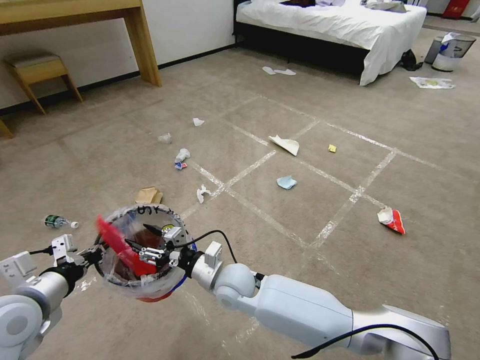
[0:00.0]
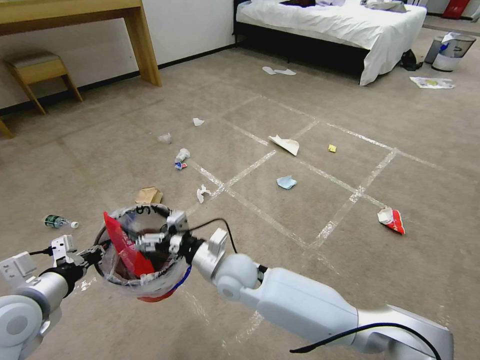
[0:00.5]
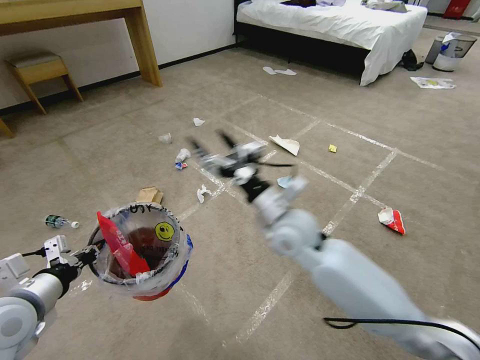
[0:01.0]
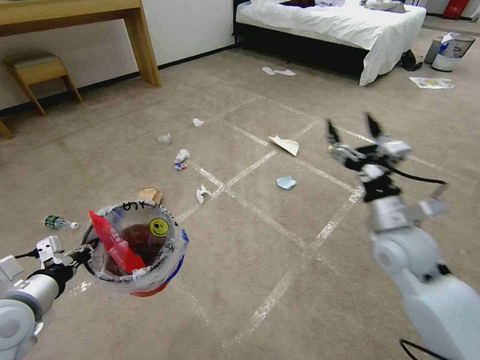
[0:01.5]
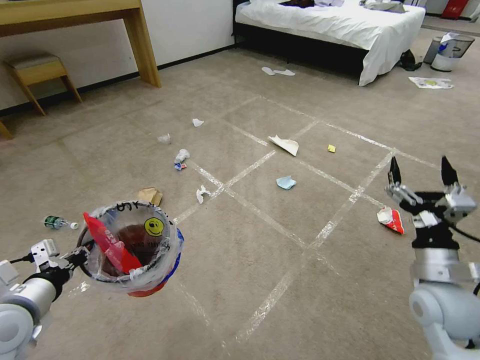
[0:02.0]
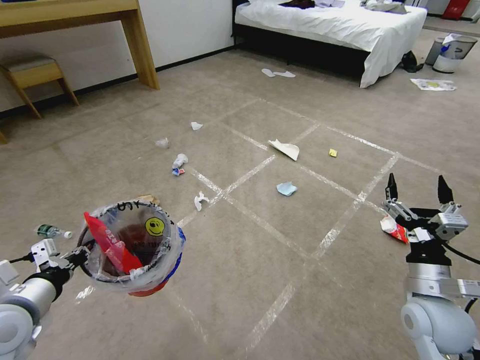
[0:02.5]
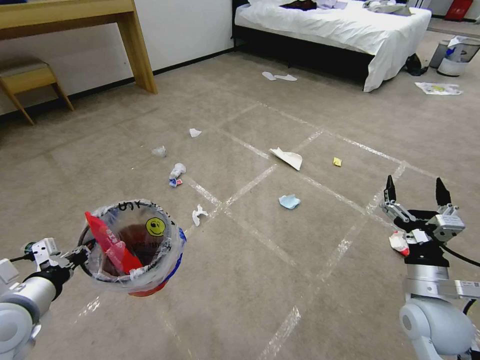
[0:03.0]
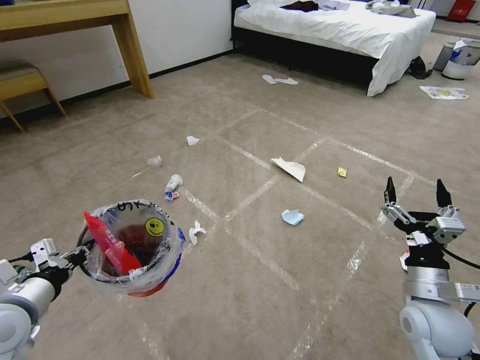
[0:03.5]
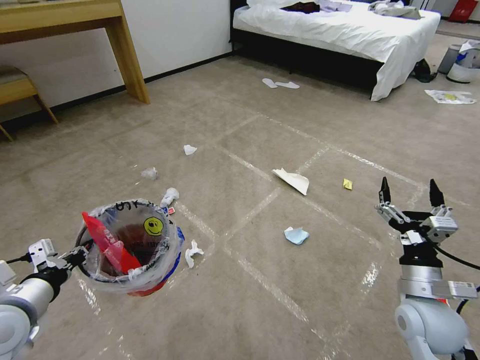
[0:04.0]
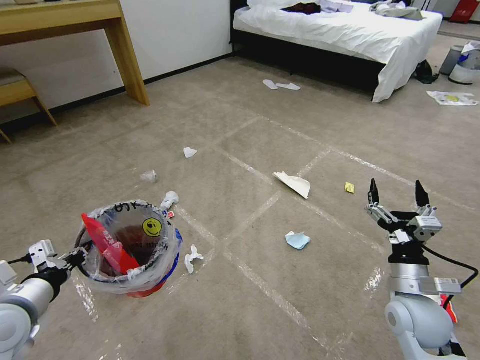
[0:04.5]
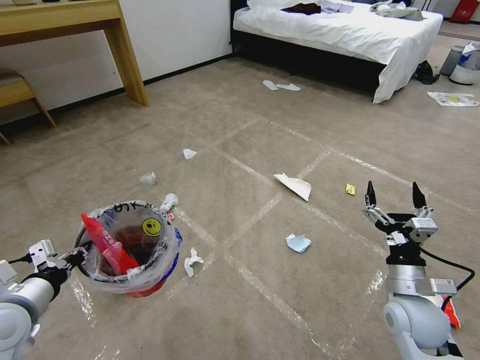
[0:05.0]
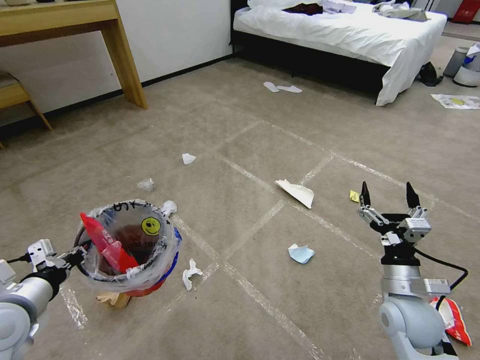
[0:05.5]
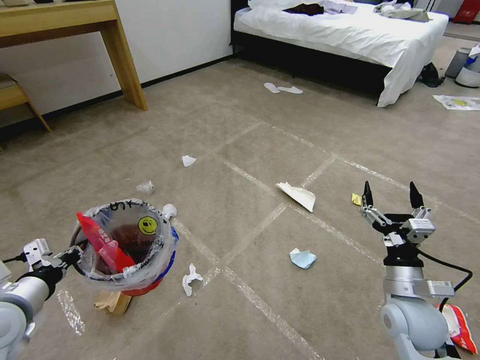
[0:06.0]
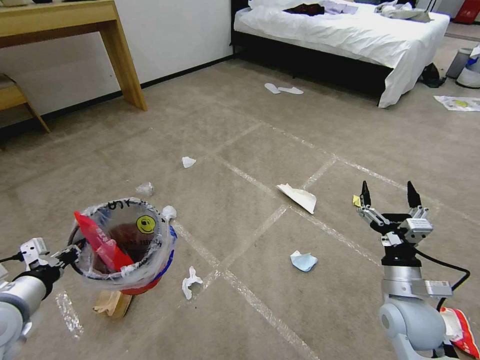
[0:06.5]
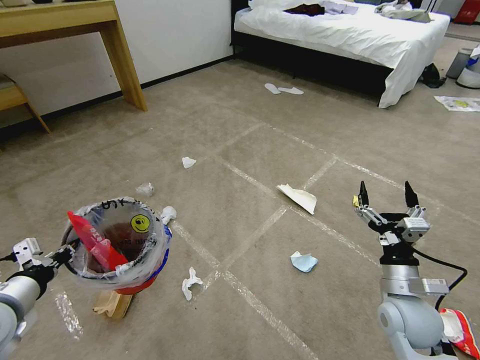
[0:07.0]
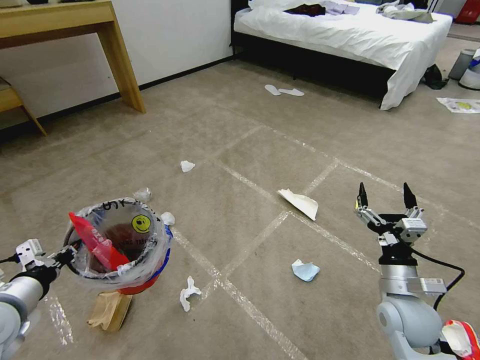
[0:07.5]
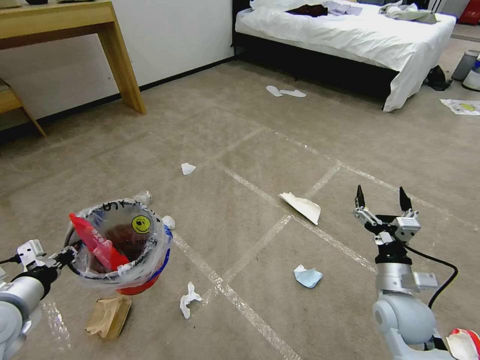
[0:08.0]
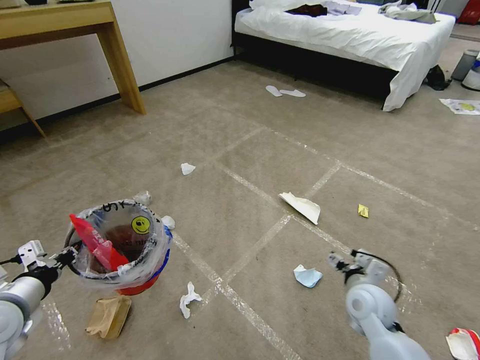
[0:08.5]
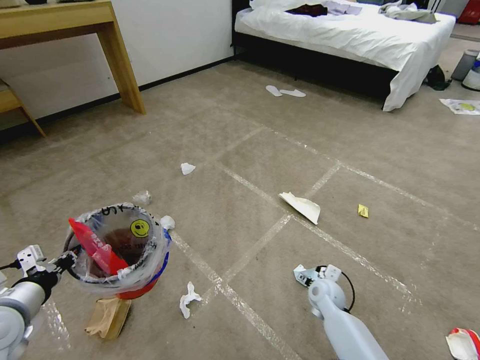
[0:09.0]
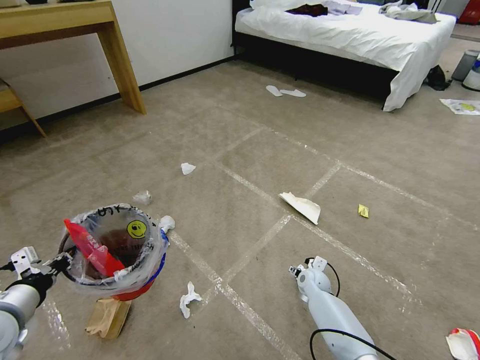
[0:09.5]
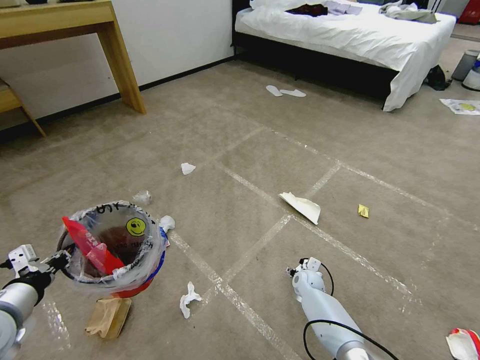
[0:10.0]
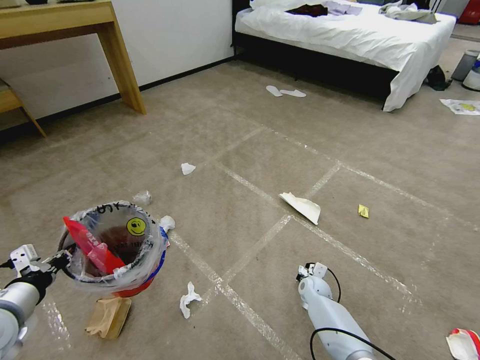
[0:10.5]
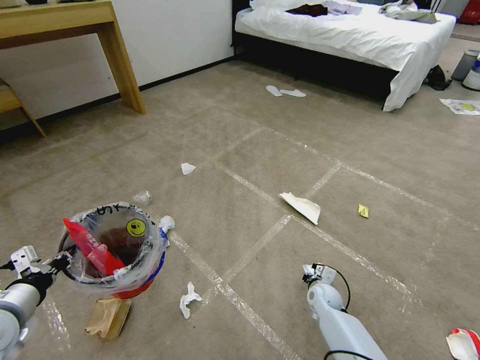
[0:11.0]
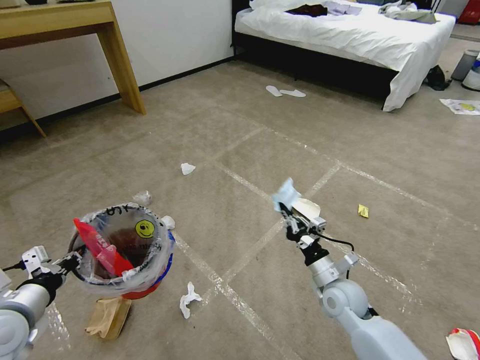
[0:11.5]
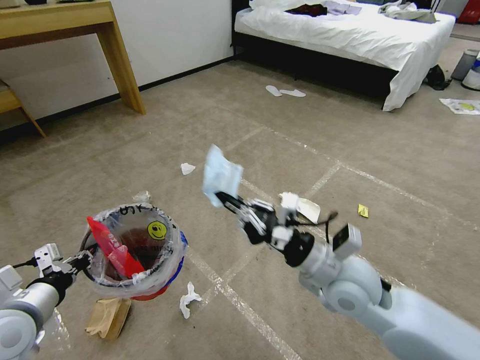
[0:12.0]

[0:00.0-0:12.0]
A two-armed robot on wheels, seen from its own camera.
Task of the whole recording: Pick up the trash bin and place the garbage on the floor into it.
0:00.0 to 0:02.0: The right gripper shifts about 40 cm to the right, and opens.
0:06.0 to 0:08.0: There are only small adjustments of the grippers.
0:08.0 to 0:10.0: The right gripper shifts roughly 30 cm downward, forward and to the left.
0:10.0 to 0:12.0: The right gripper travels upward and backward by approximately 35 cm, and closes its fingers.

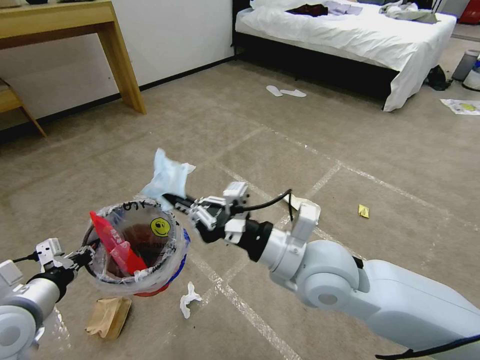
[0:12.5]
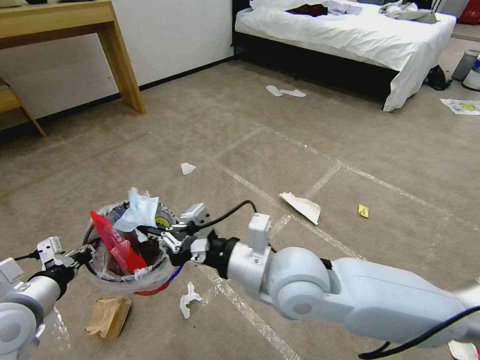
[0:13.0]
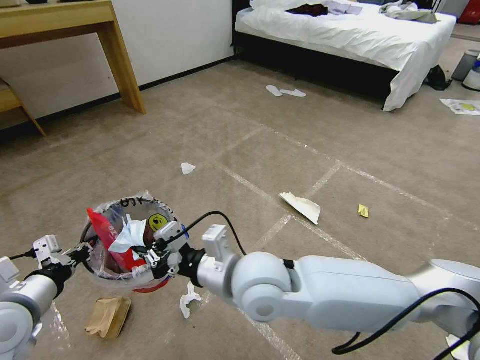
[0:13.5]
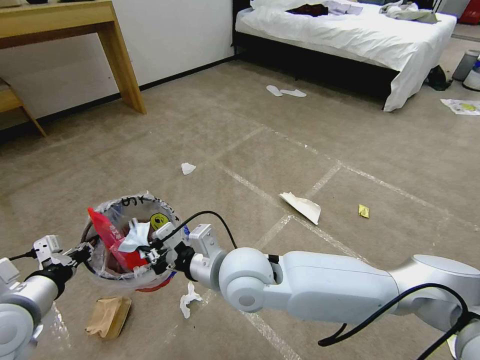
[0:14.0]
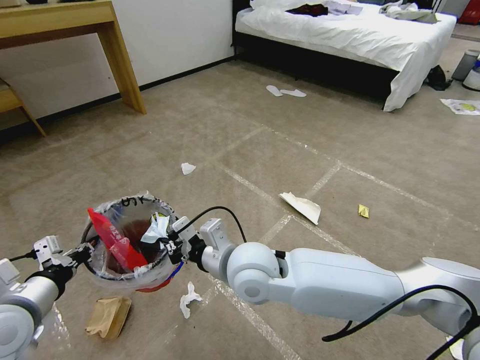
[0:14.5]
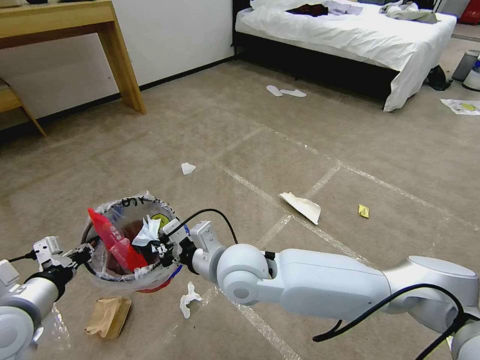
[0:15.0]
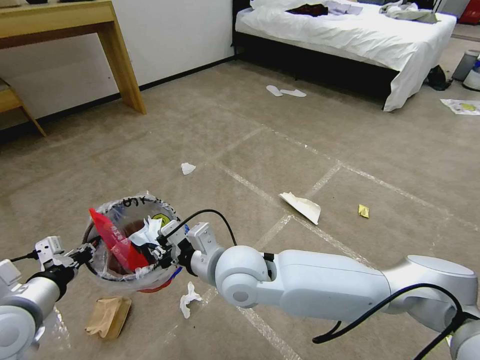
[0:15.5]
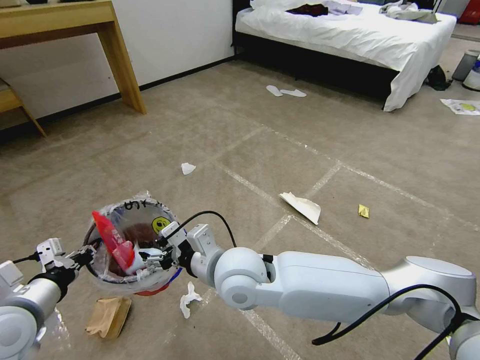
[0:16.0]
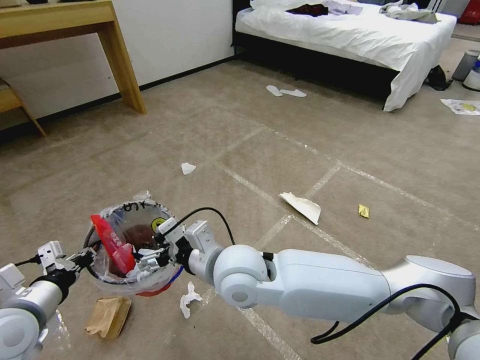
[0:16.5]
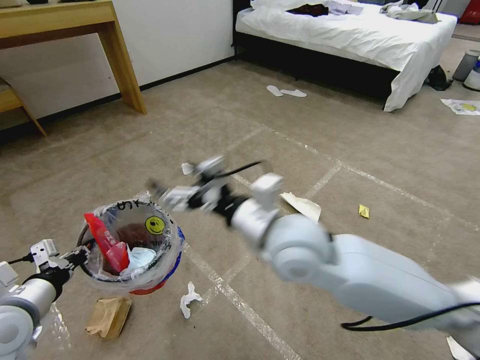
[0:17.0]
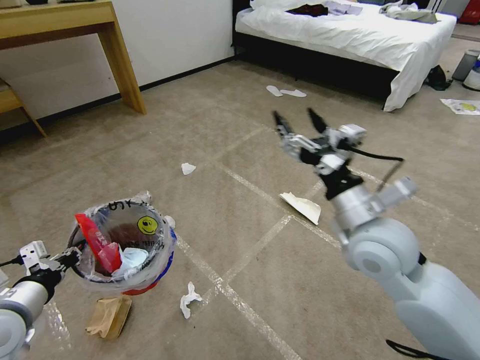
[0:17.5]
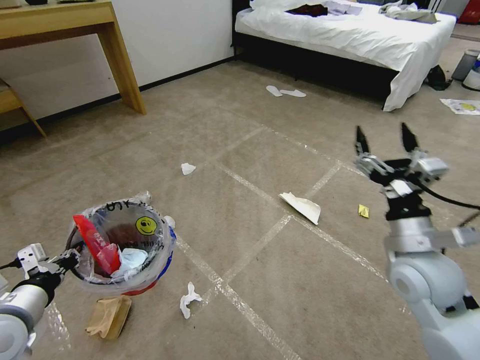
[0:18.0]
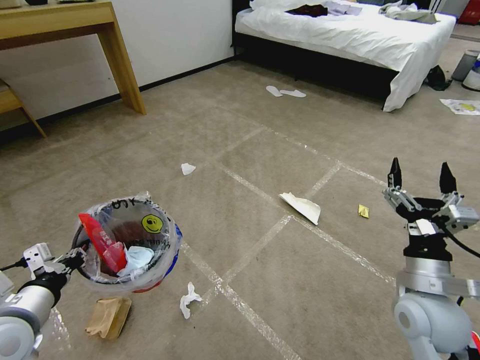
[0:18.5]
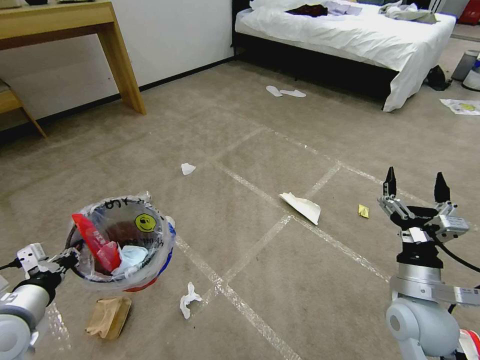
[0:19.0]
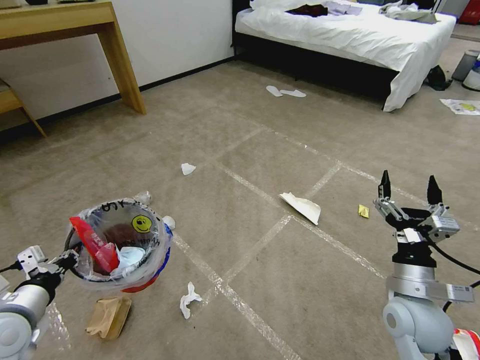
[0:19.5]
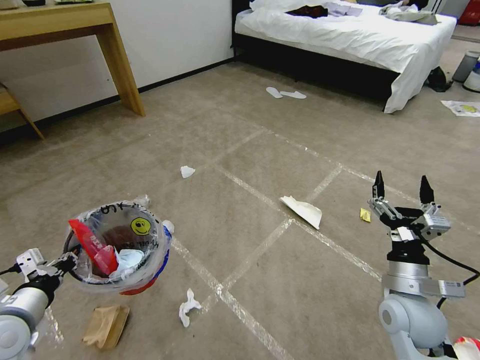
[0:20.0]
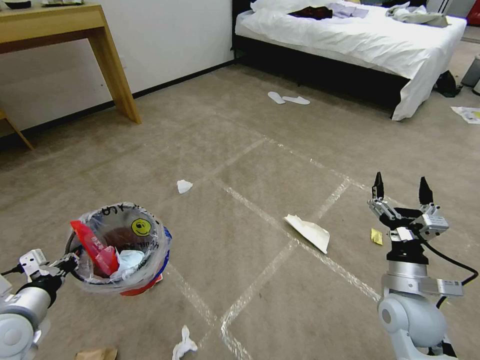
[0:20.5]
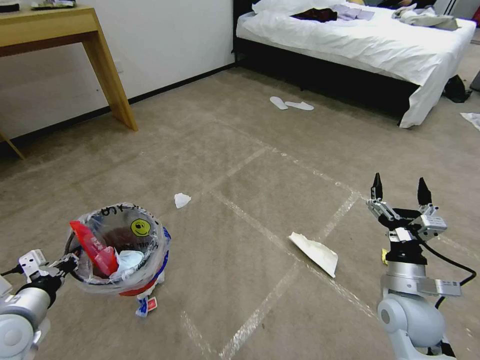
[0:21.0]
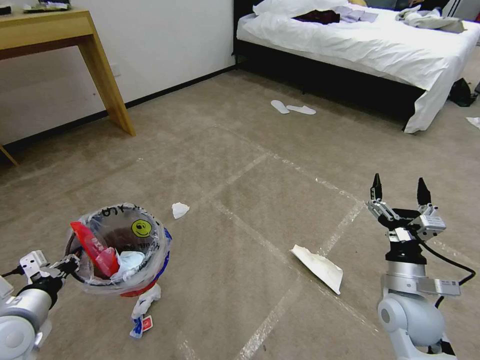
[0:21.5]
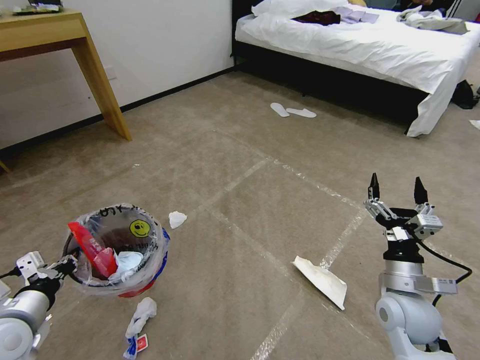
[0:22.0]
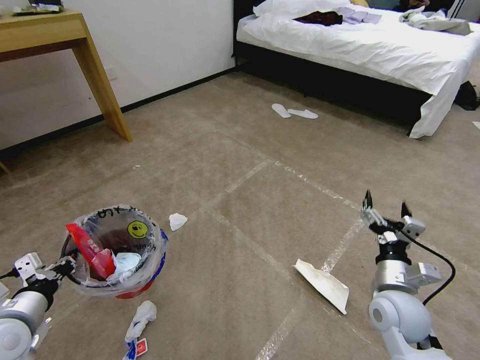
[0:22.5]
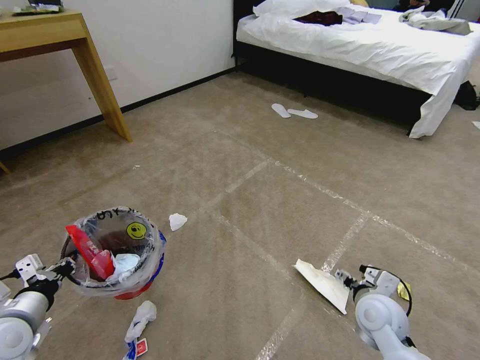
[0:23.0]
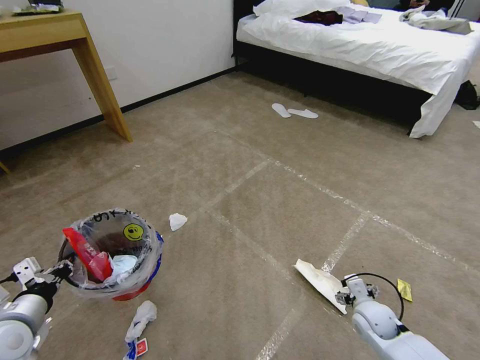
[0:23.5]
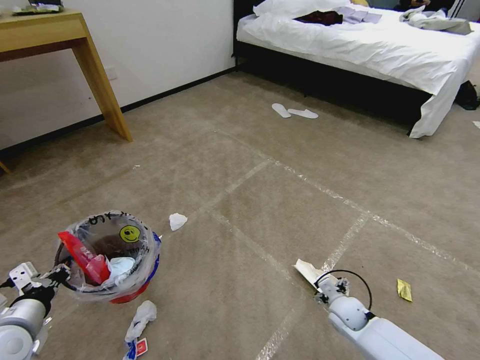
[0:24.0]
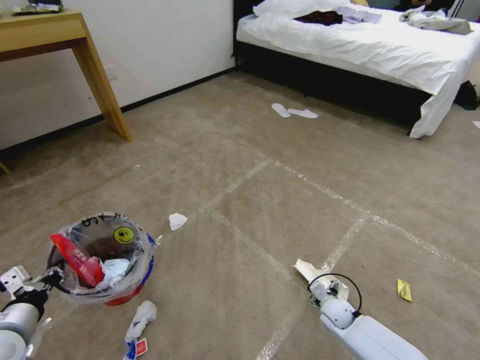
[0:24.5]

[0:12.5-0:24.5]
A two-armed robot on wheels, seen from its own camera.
Task of the whole recording: Pick up the trash bin and place the garbage on the floor into it.
0:12.5 to 0:14.5: The right gripper moves to the left, about 10 cm.
0:14.5 to 0:16.5: The right gripper opens up.
0:16.5 to 0:18.5: The right gripper is displaced to the right by about 35 cm.
0:22.5 to 0:24.5: The right gripper goes about 25 cm downward.

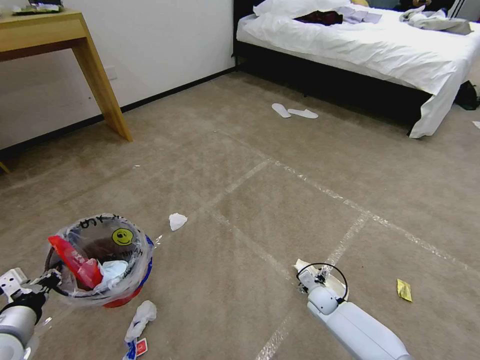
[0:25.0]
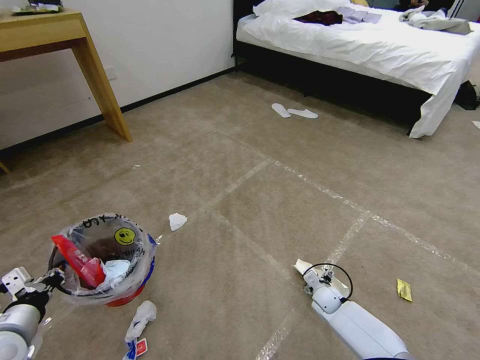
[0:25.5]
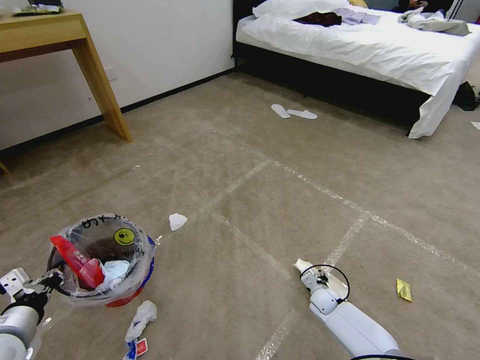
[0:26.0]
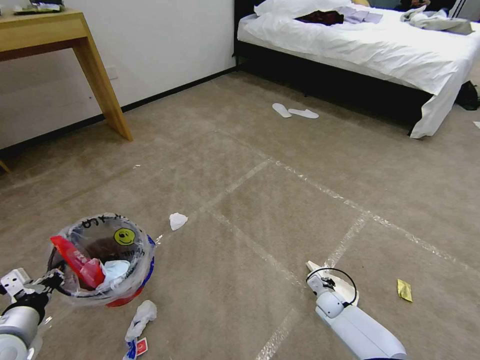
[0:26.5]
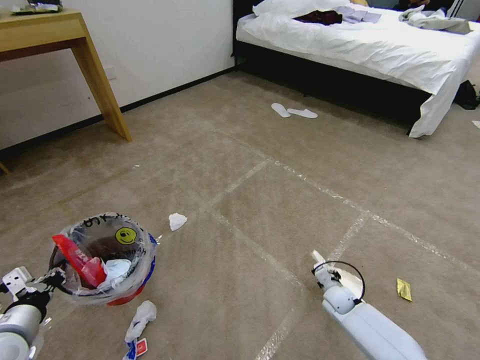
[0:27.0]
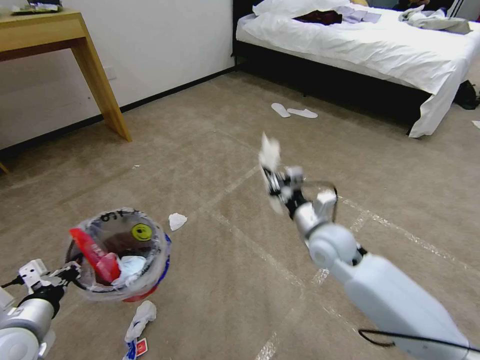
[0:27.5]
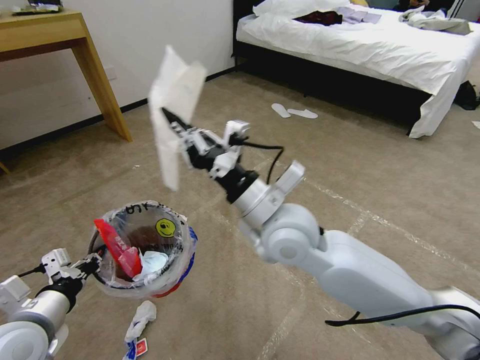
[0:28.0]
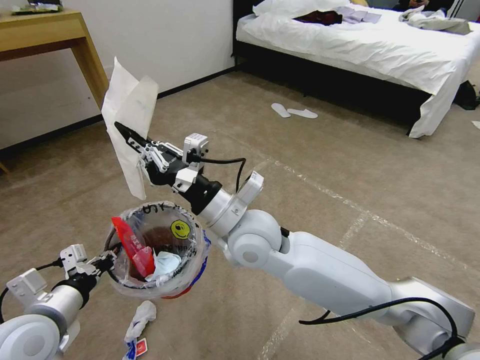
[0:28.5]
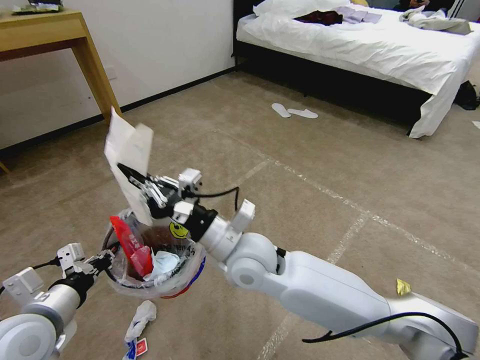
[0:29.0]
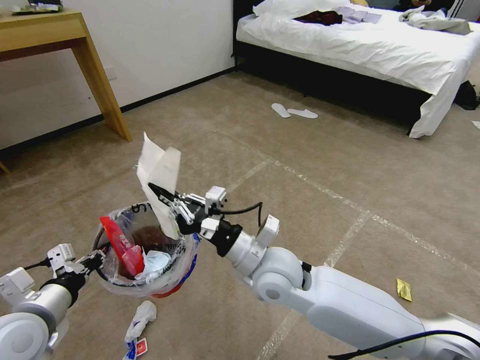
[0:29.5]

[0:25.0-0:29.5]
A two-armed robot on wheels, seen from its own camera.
Task of the whole recording: Pick up the trash bin and place the garbage on the floor into it.
0:25.0 to 0:27.0: The right gripper closes its fingers.
0:27.0 to 0:29.5: The left gripper moves to the right, approximately 5 cm; the right gripper moves upward and to the left, approximately 40 cm.
